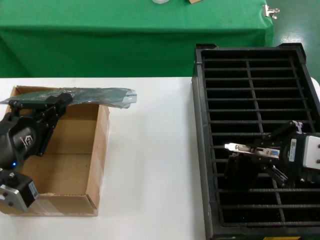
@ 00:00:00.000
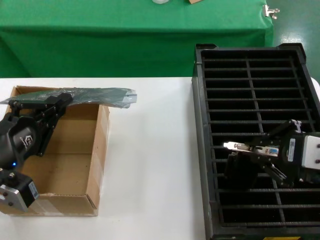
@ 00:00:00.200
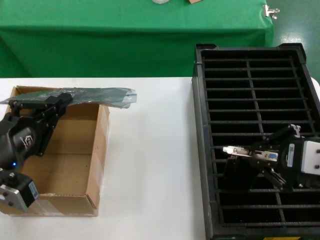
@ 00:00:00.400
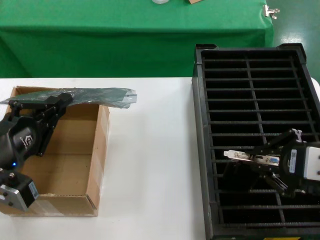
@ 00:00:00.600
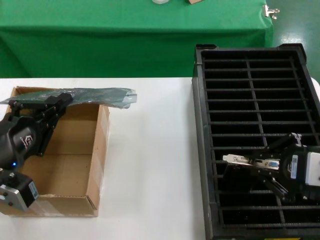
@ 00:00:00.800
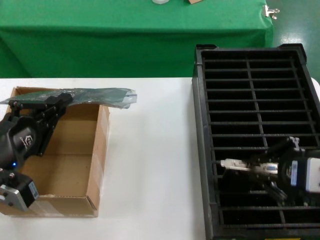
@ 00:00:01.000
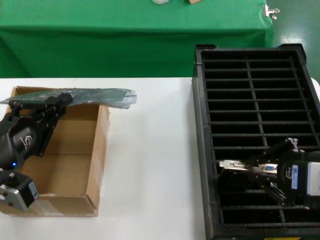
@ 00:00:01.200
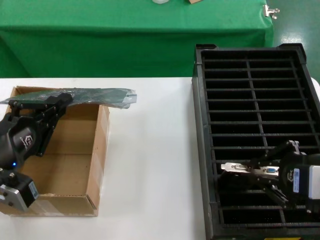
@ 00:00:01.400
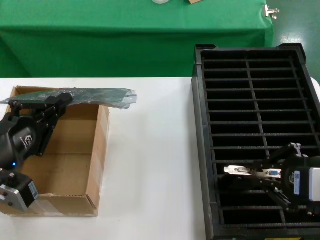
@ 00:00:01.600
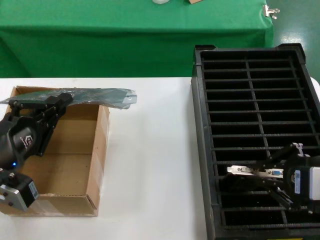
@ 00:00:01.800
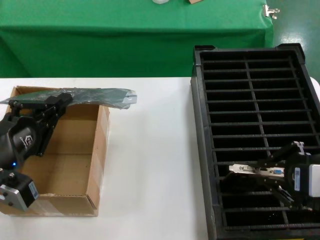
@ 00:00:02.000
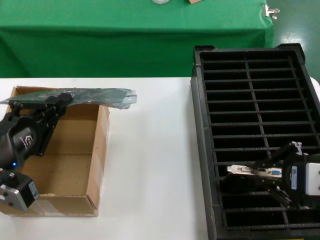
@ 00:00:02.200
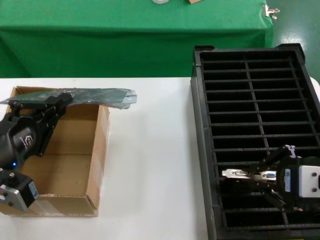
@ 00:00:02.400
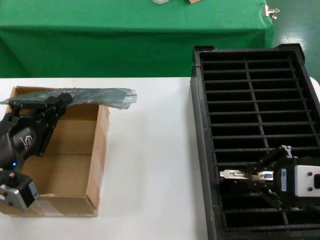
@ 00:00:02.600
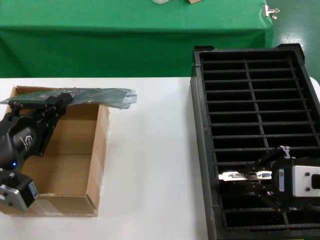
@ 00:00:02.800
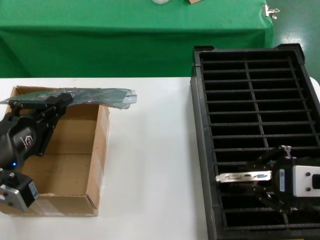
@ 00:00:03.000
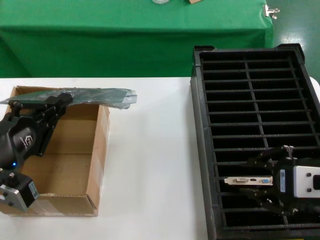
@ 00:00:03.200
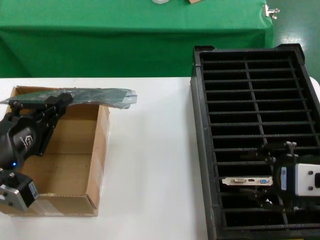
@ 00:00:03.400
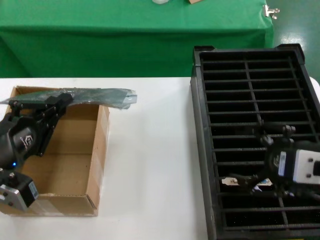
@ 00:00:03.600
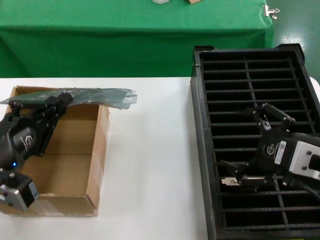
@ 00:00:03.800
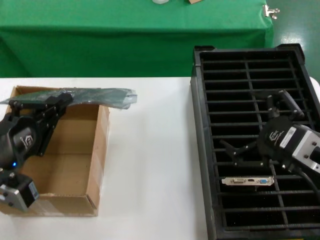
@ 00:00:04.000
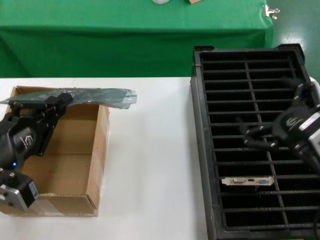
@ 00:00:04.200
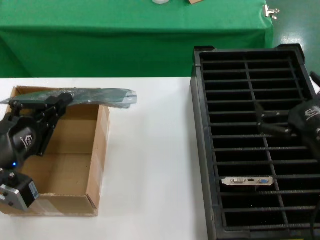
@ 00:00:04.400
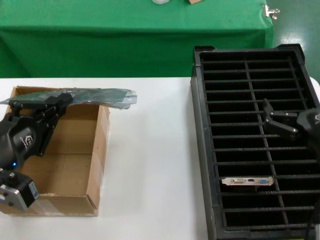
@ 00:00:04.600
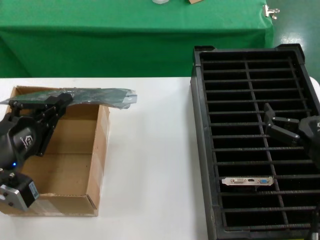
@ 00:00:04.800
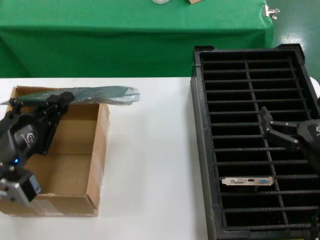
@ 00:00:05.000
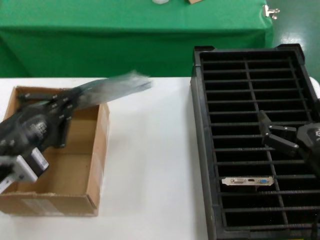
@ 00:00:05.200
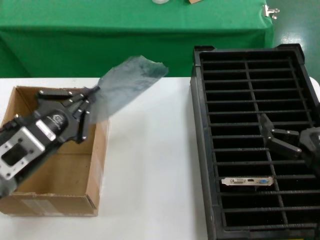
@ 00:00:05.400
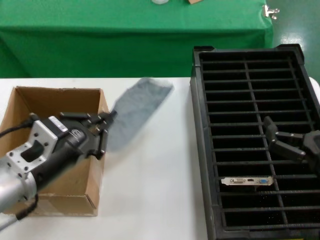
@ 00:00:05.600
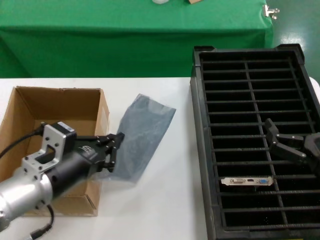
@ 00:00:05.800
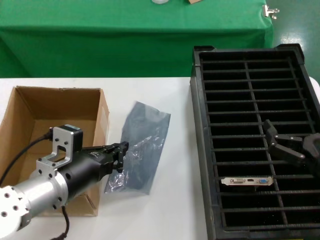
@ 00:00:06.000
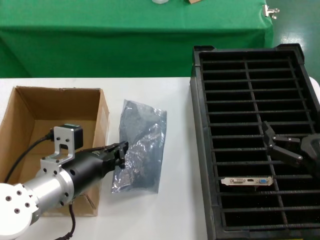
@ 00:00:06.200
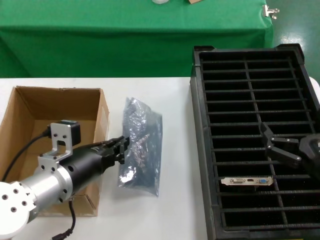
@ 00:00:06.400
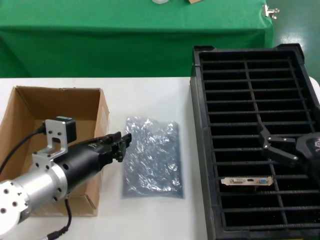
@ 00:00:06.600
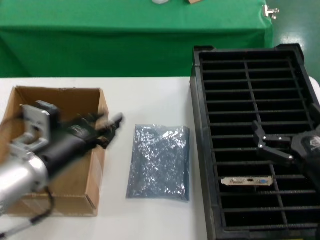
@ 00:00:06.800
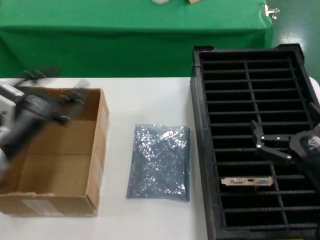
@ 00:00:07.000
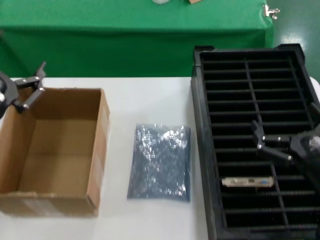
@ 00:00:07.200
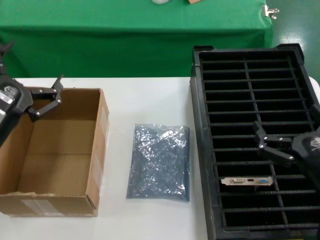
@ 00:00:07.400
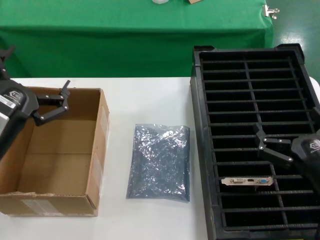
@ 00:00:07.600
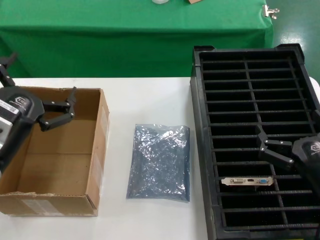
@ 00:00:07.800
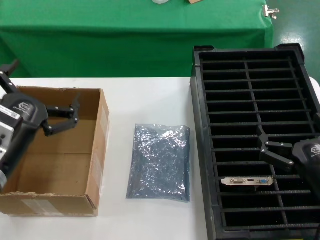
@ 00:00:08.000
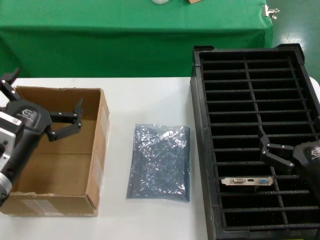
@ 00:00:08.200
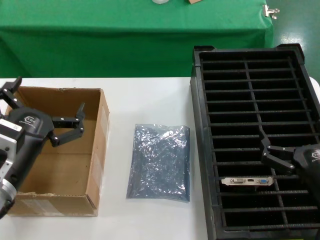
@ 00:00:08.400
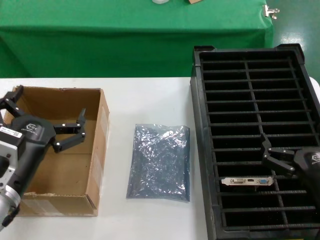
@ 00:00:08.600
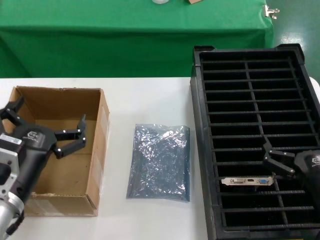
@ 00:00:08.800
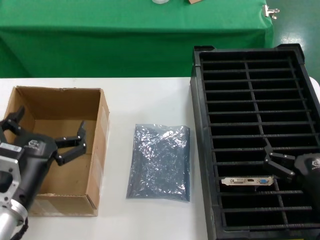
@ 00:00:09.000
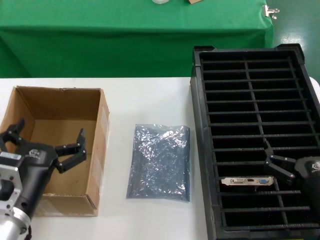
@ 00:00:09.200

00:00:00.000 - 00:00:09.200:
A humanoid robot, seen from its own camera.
Task of the whole recording: take out graphics card from box remove packaging put into black container.
Step, 00:00:00.000 - 00:00:03.200: Place the hard disk in the hard disk enclosure.
Step, 00:00:03.400 - 00:00:06.600: Place the down the bag.
00:00:00.000 - 00:00:03.000: There are only small adjustments of the hands.
00:00:03.000 - 00:00:04.600: The right hand goes some 10 cm downward.
00:00:04.600 - 00:00:06.200: The left hand is displaced forward, to the right and downward by about 15 cm. The right hand moves approximately 5 cm.
00:00:06.200 - 00:00:07.600: The left hand heads upward, to the left and backward, covering some 10 cm.
00:00:07.600 - 00:00:09.200: The left hand is displaced downward by approximately 10 cm.
